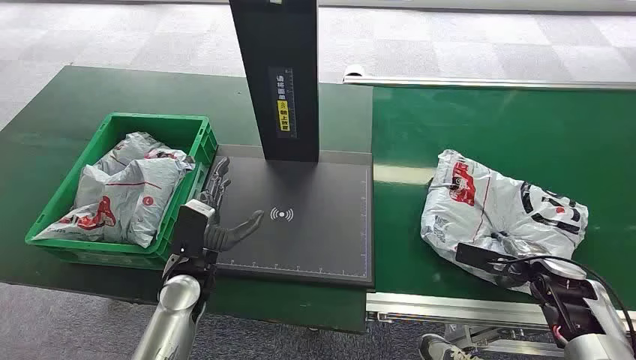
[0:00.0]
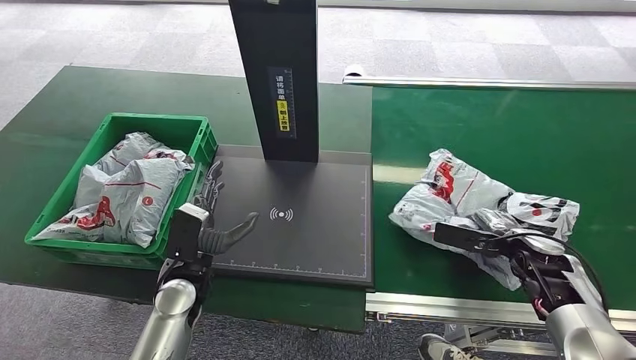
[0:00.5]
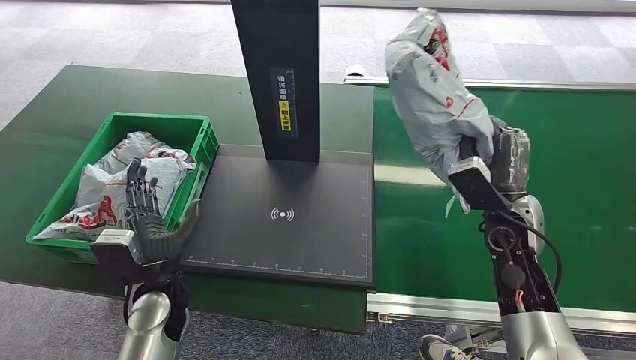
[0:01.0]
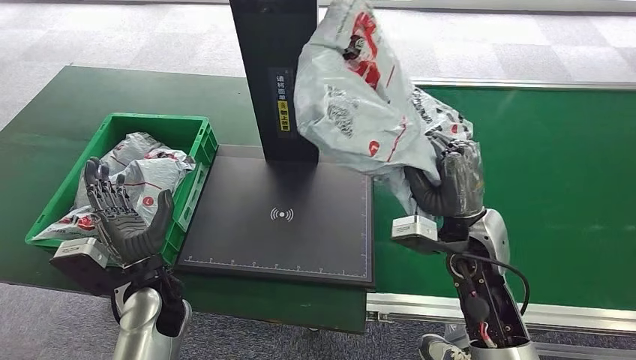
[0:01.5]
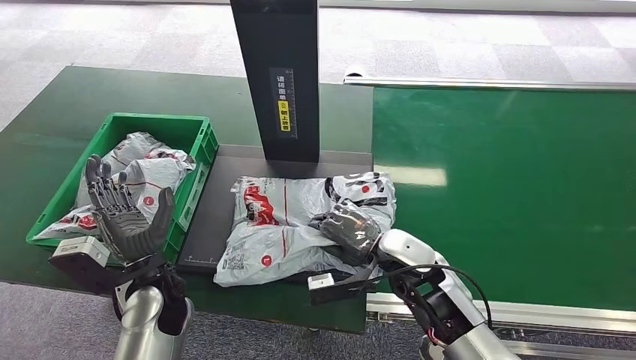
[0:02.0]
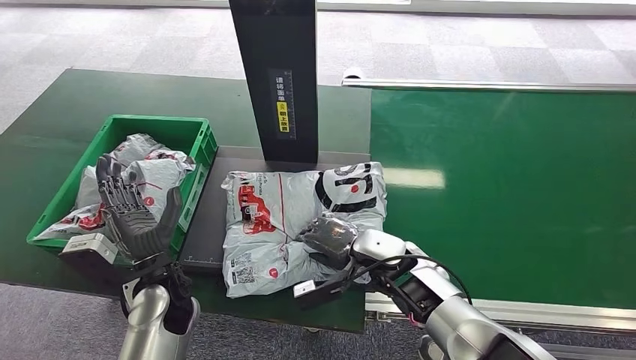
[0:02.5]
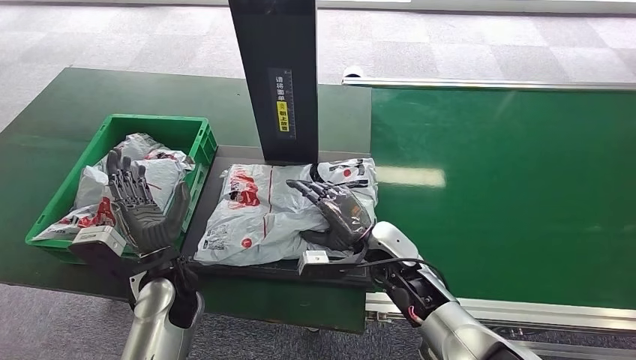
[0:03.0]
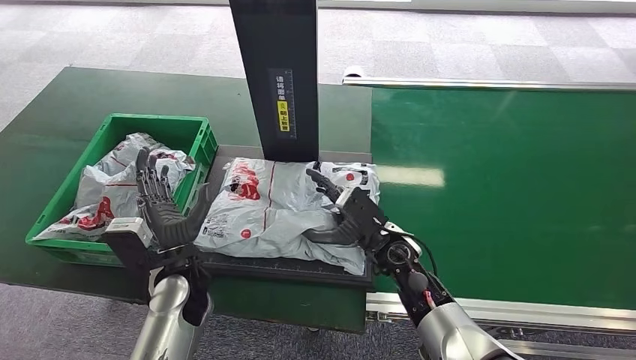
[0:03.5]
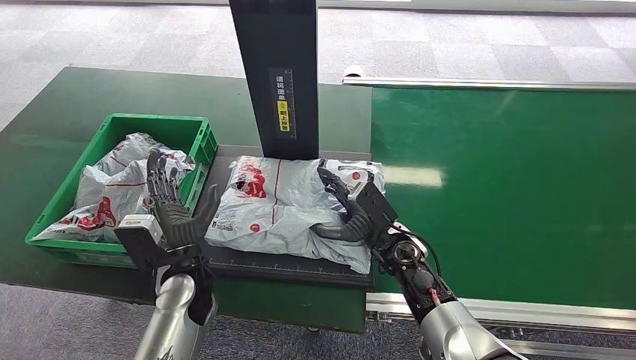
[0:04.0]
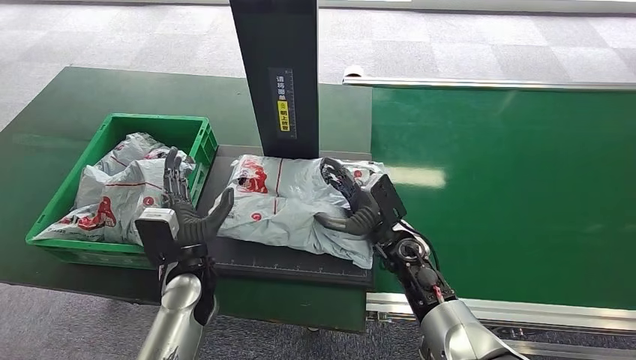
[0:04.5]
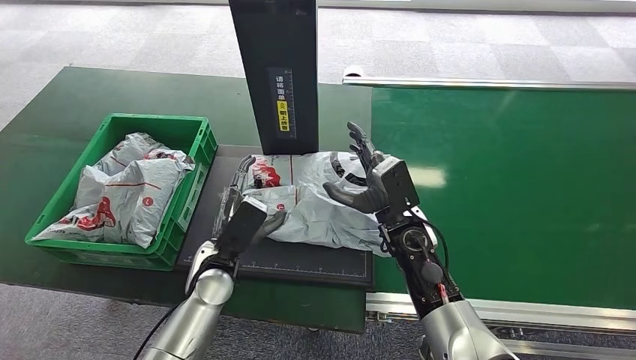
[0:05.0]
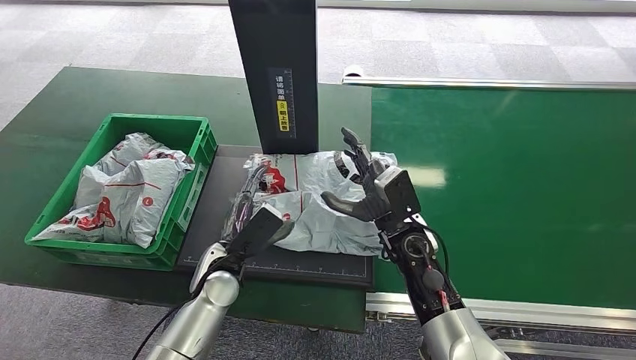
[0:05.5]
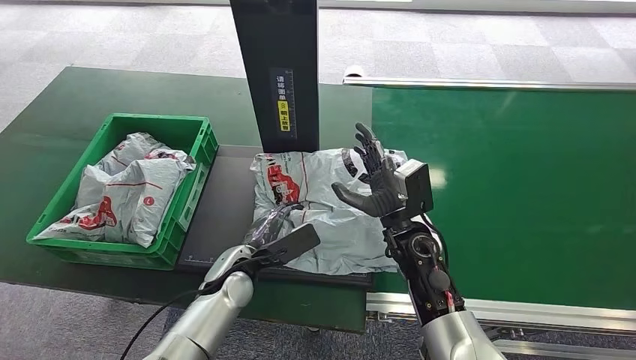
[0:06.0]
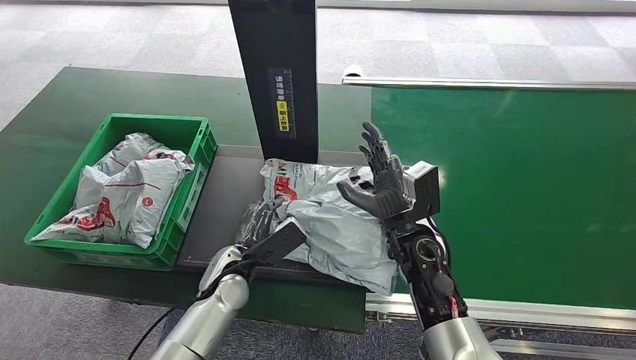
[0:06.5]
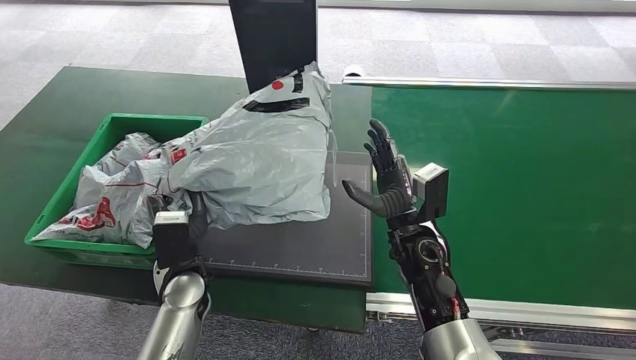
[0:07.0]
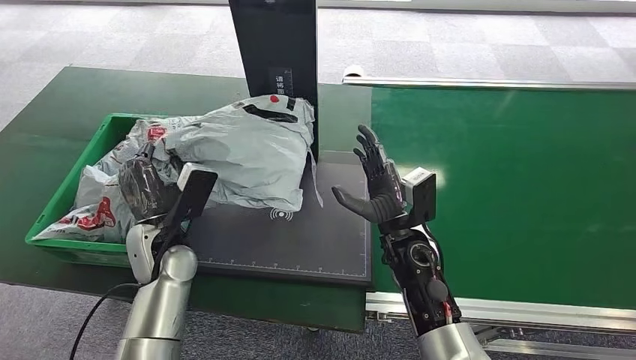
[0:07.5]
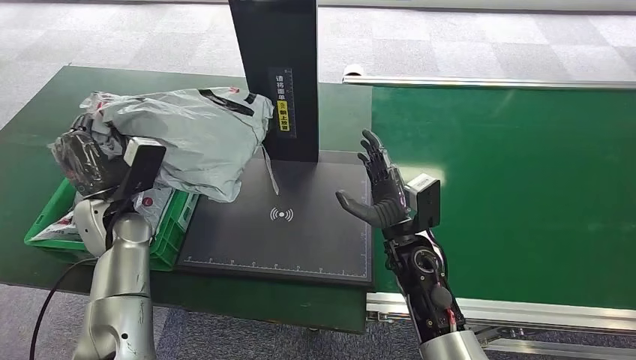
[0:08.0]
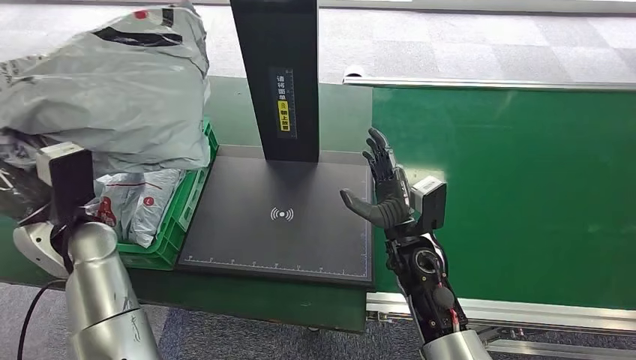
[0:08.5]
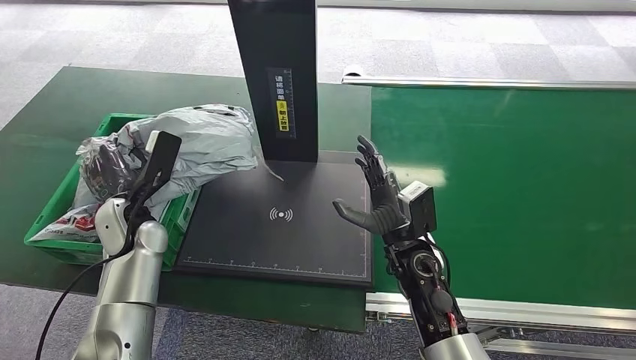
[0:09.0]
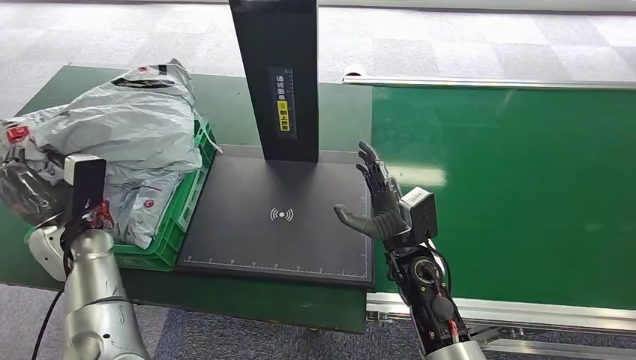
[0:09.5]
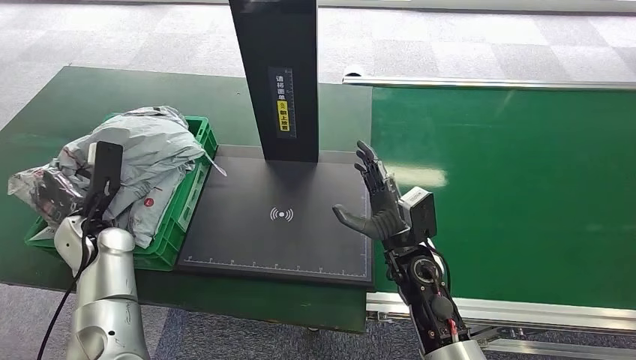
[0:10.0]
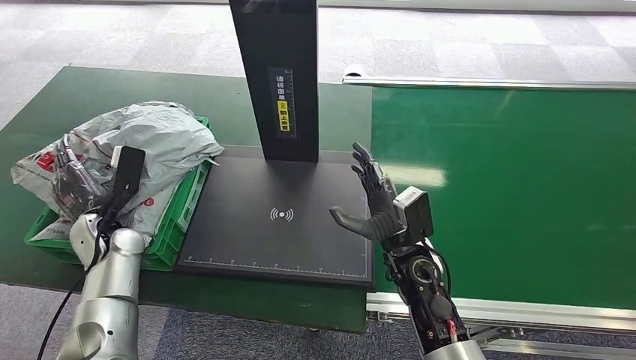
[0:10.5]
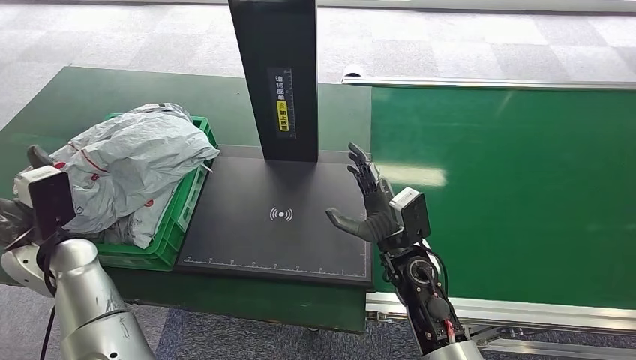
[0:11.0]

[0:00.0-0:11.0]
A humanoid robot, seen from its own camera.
Step, 0:00.0 to 0:01.0: Pick up the package from the conveyor belt.
Step, 0:01.5 to 0:03.5: Place the package onto the inbound machine.
Step, 0:04.0 to 0:07.5: Pick up the package from the inbound machine.
Step, 0:08.0 to 0:11.0: Place the package into the parcel locker.
0:03.5 to 0:05.5: The left hand changes place by roughly 5 cm.
0:07.5 to 0:09.0: The left hand goes some 5 cm to the left.
0:09.0 to 0:11.0: The left hand moves to the left, roughly 5 cm.
